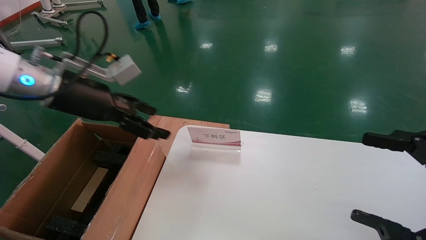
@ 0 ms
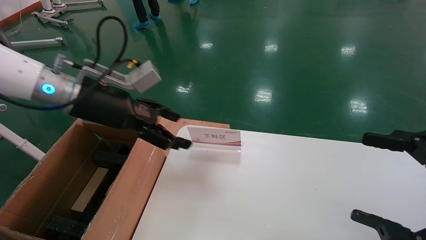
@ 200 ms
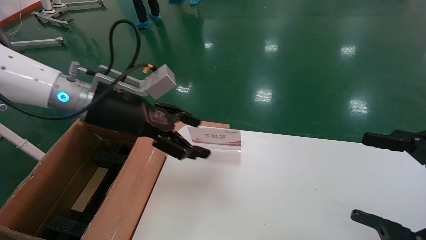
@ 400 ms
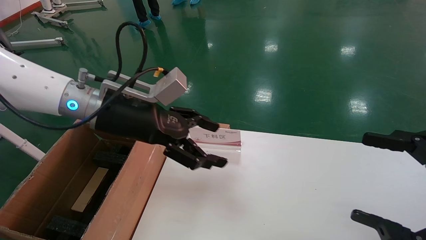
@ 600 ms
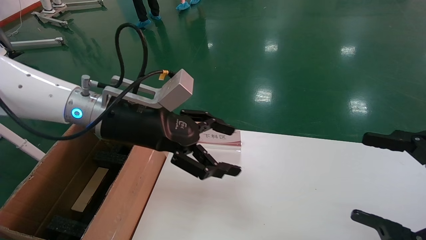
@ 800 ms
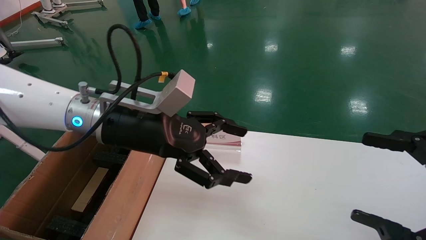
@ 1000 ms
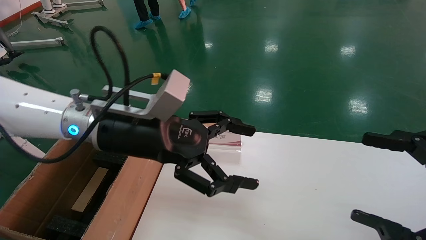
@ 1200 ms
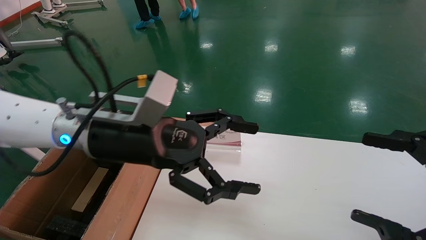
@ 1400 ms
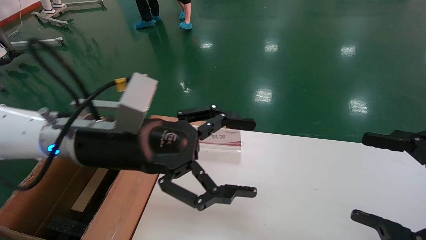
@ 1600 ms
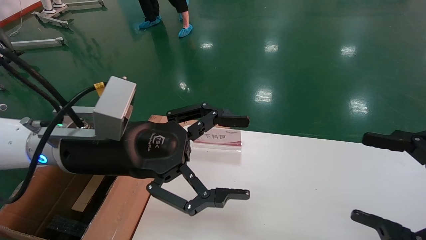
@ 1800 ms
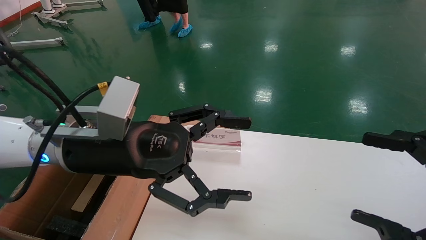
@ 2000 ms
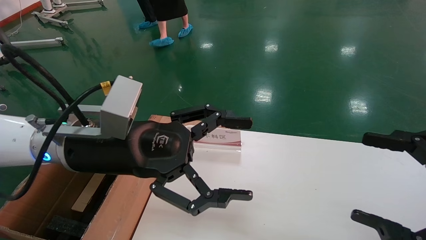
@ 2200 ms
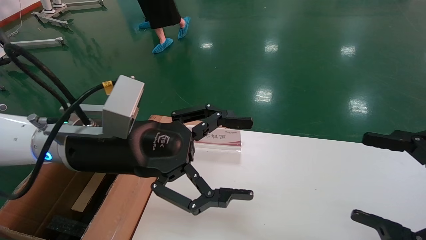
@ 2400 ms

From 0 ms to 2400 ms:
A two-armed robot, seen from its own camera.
Task of the whole recording: pick up the small cardboard box and load it into the large cardboard box.
From 0 ms to 1200 ms: The left gripper travels to the right by some 10 cm.
From 1200 ms to 2400 ms: The grippers make only small movements.

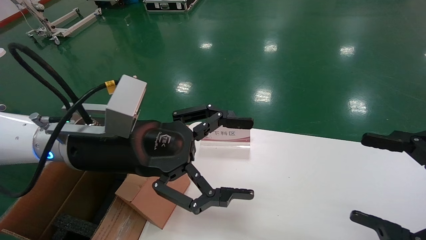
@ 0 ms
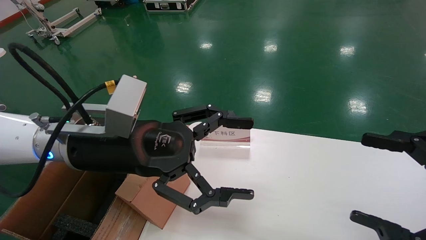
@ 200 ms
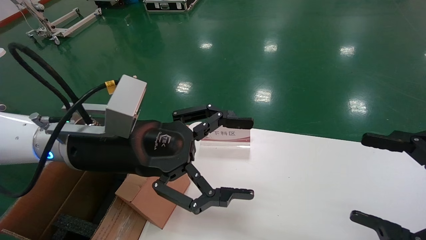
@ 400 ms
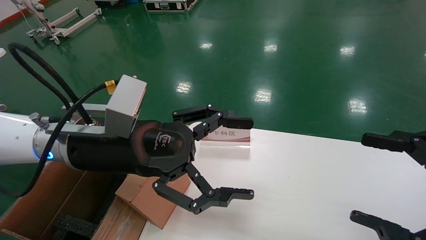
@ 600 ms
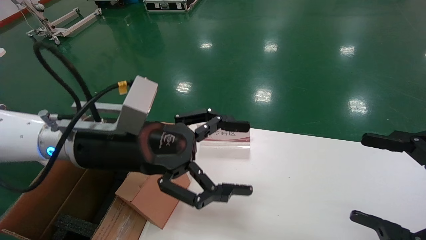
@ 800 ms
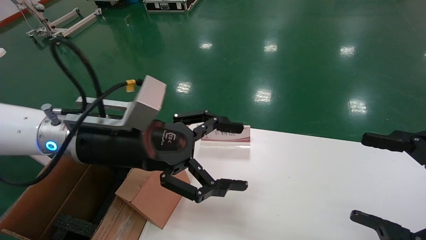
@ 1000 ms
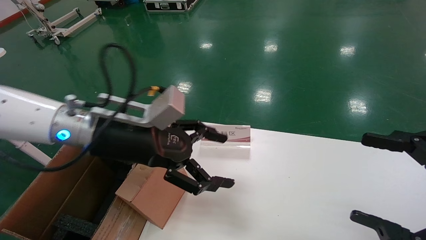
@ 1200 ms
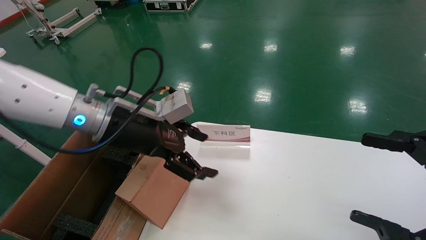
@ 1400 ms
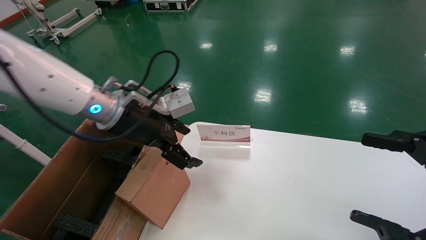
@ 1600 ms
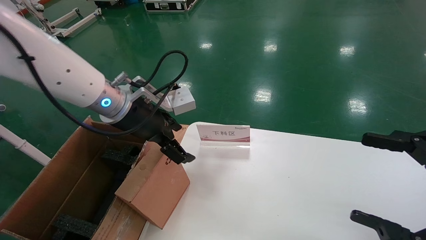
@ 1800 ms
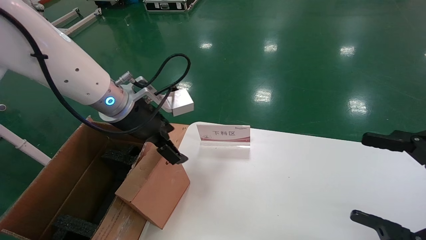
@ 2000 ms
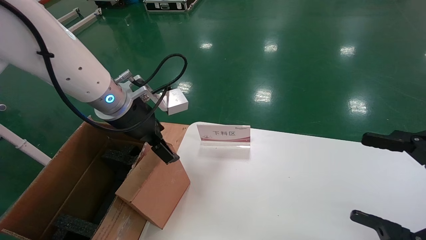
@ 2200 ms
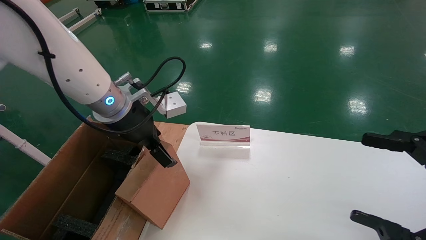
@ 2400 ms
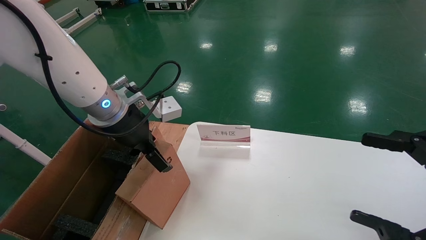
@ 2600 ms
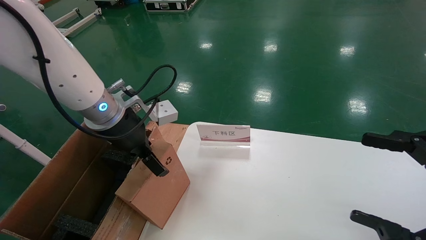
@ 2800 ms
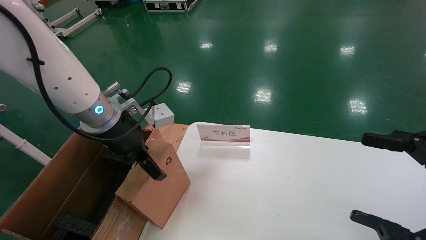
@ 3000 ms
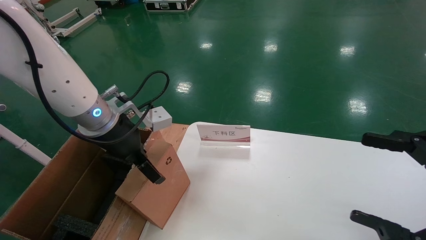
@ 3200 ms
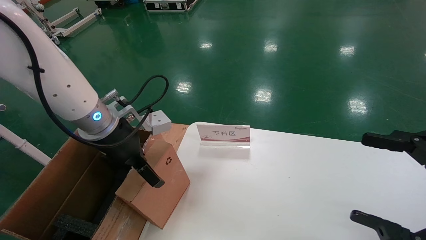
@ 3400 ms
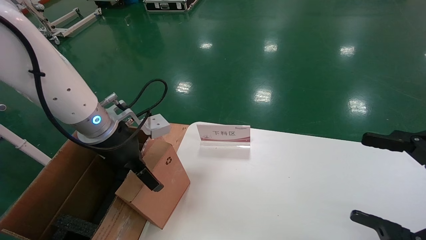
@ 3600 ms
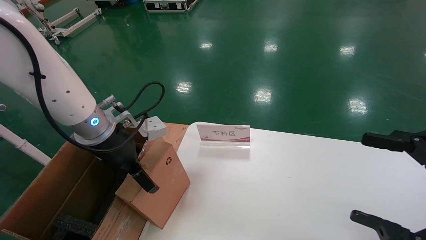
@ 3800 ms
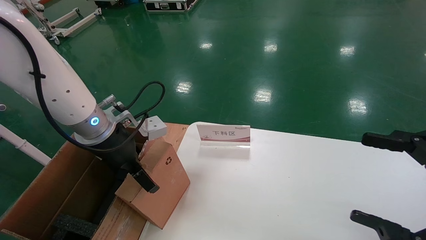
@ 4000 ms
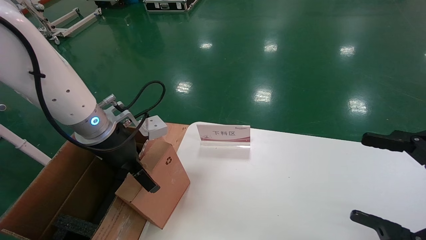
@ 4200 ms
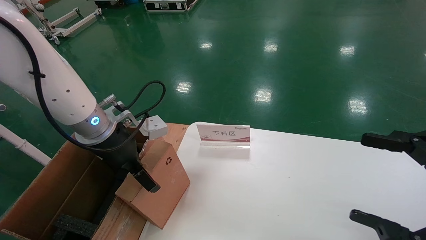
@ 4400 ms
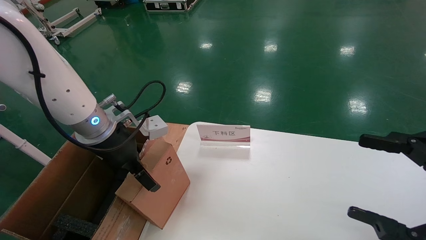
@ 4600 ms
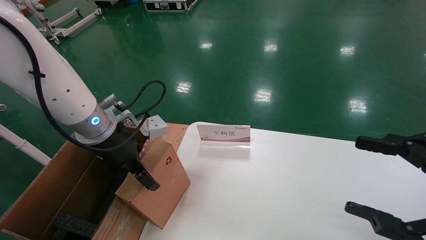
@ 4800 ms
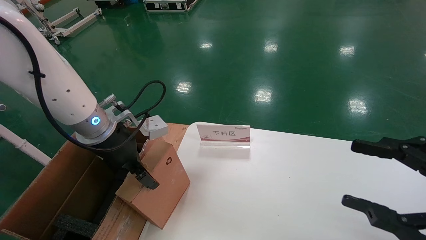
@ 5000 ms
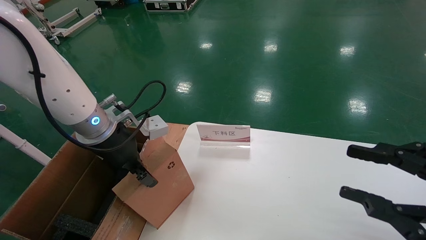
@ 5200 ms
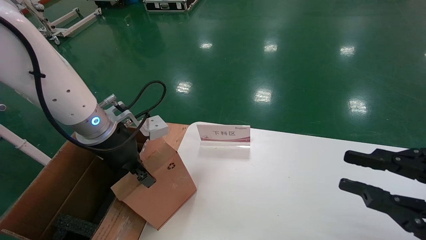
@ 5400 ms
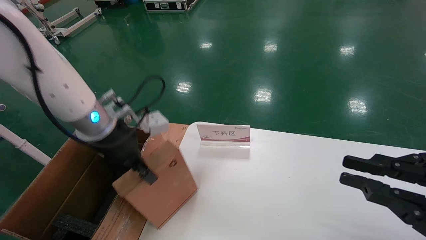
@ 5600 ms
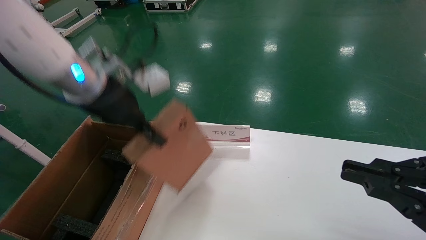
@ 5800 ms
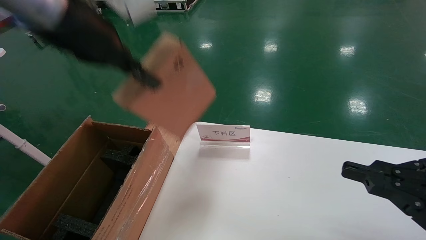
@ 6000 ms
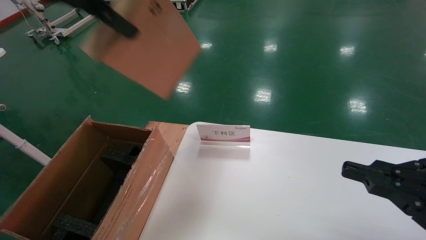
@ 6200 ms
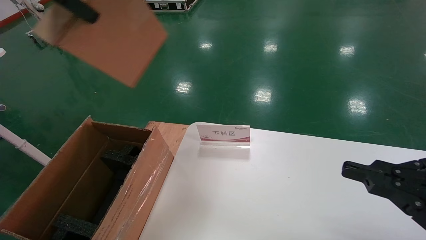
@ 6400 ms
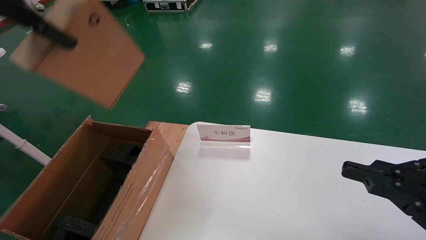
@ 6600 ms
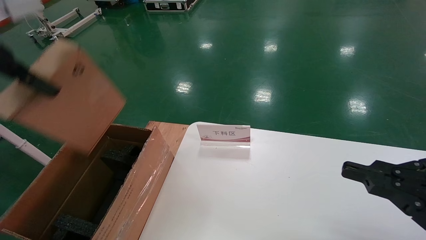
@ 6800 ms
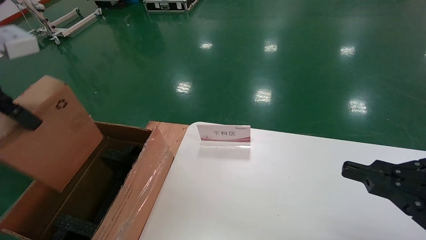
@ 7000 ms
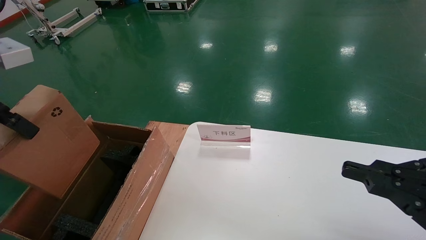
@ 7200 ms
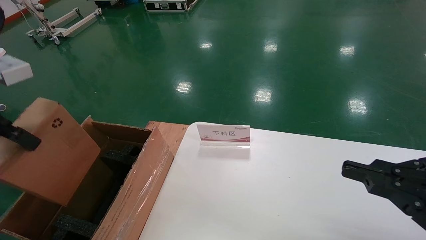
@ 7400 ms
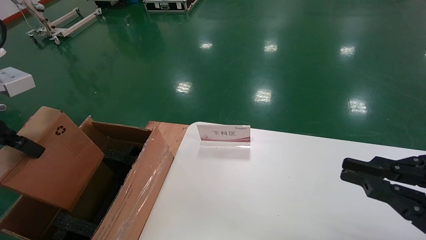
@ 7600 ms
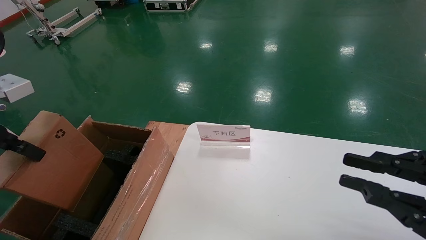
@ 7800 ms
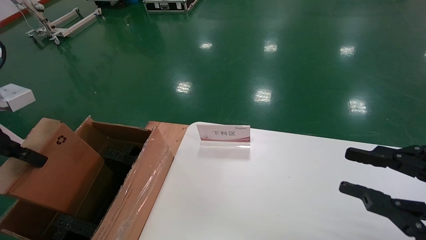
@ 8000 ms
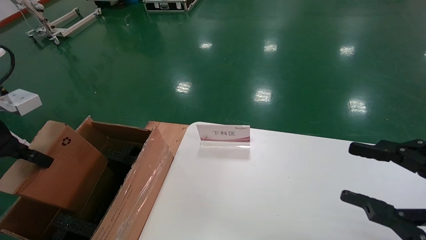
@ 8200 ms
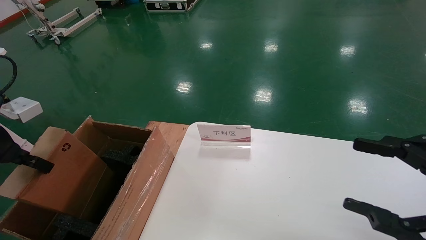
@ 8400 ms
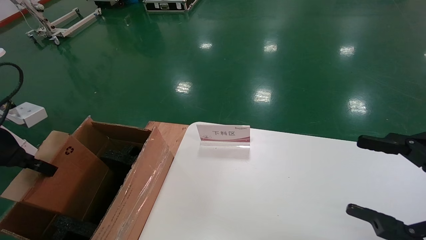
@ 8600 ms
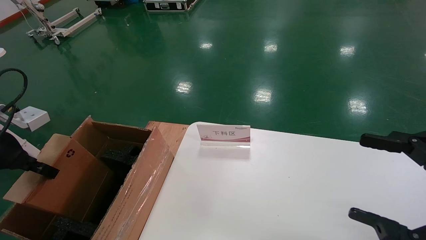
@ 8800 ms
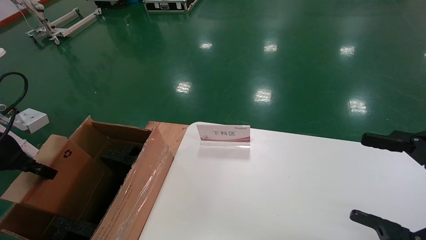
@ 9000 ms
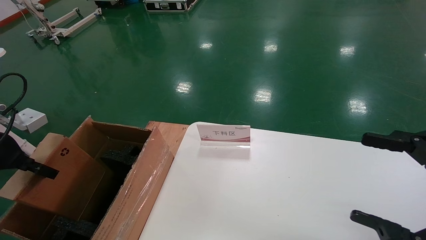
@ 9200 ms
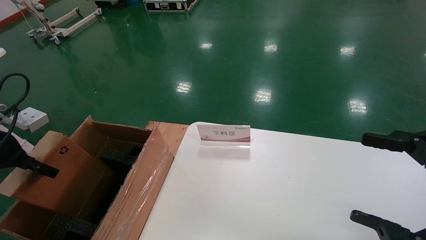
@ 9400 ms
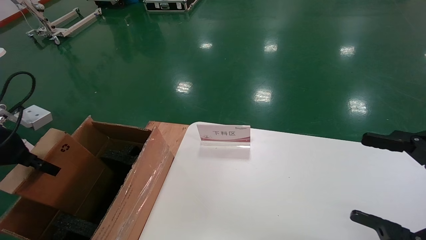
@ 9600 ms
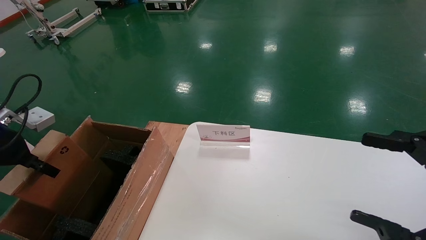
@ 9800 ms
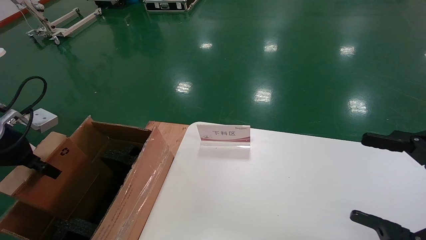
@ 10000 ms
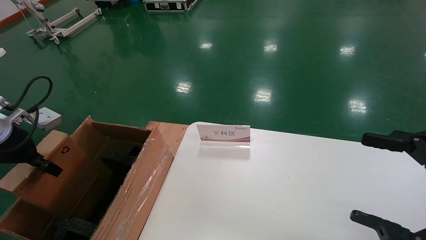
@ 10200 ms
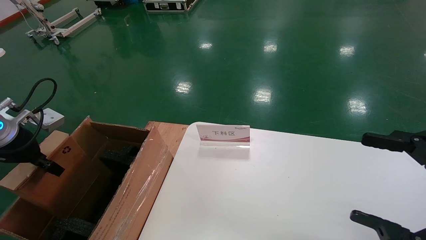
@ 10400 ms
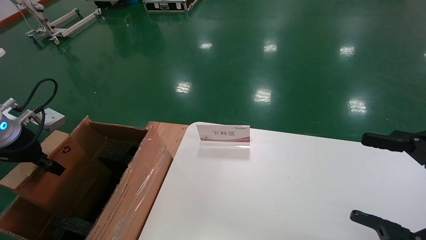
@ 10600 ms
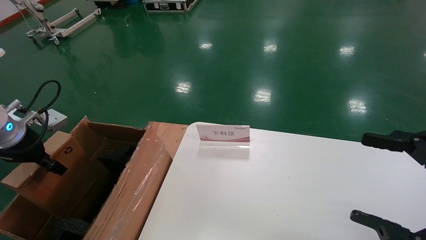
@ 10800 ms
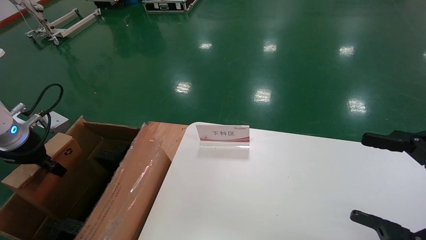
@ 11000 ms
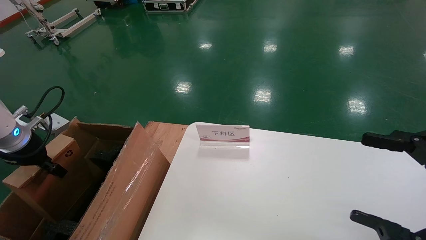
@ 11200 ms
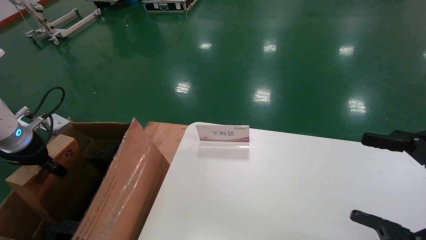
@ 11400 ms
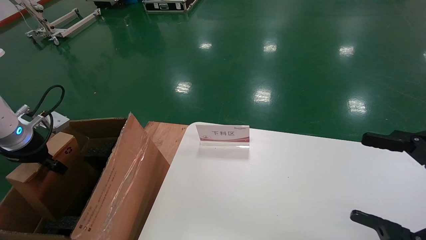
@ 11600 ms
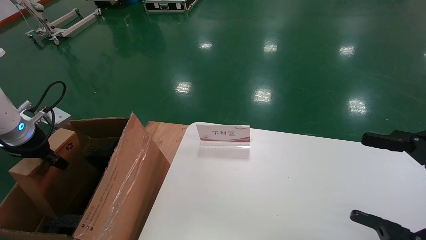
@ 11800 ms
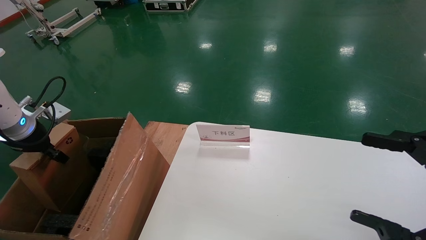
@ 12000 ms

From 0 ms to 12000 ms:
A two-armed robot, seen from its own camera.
Task of the whole recording: pick up the small cardboard box and load it into the large cardboard box.
Step, from 1200 ms to 5200 ms: Pick up the mouse and power cord box.
From 0 ms to 1600 ms: The left gripper heads forward, covering roughly 10 cm.
From 3000 ms to 4400 ms: The grippers make only small movements.
From 4400 ms to 6000 ms: The left gripper moves upward, roughly 20 cm, and closes its fingers. The right gripper closes up.
From 6000 ms to 7600 ms: The left gripper shifts roughly 20 cm to the left, backward and downward.
From 7600 ms to 9000 ms: The right gripper opens up. The left gripper goes about 10 cm downward and to the left.
From 9000 ms to 10400 ms: There are only small adjustments of the grippers.
From 10400 ms to 12000 ms: The left gripper shifts by about 5 cm.

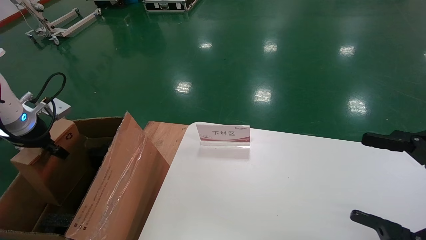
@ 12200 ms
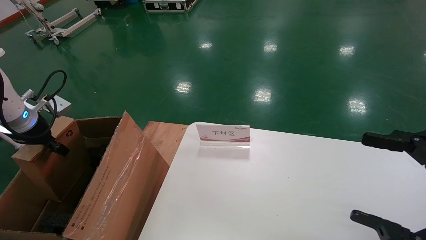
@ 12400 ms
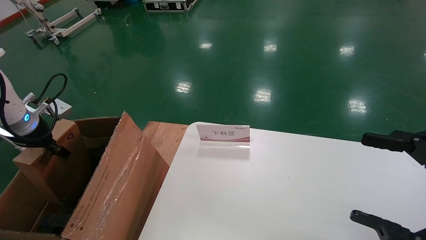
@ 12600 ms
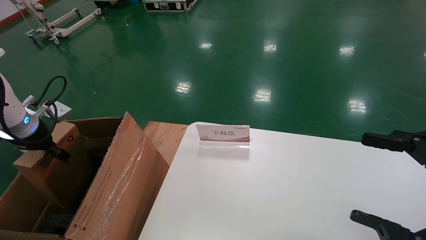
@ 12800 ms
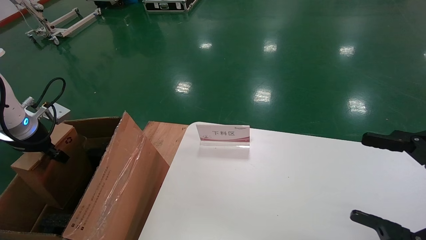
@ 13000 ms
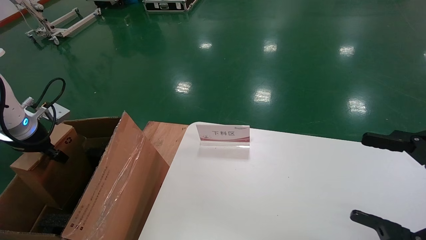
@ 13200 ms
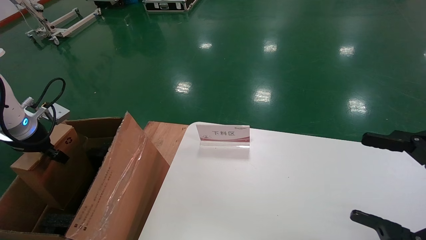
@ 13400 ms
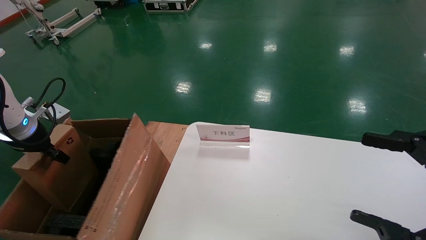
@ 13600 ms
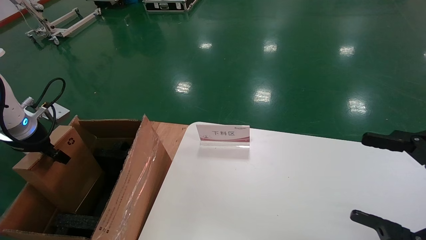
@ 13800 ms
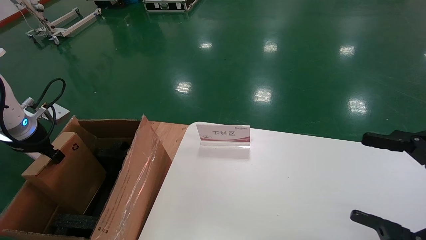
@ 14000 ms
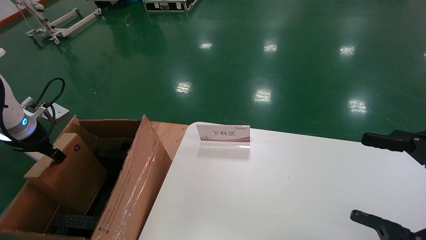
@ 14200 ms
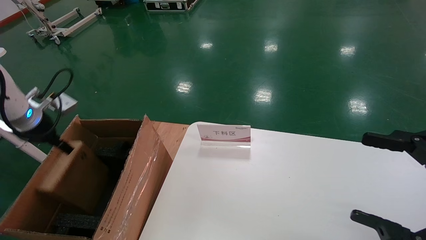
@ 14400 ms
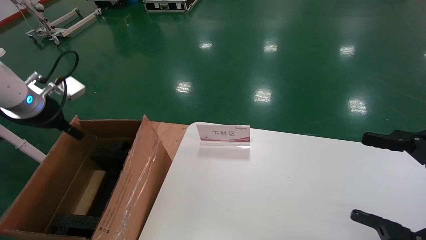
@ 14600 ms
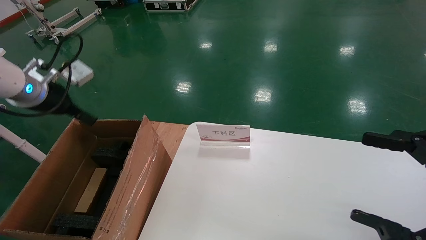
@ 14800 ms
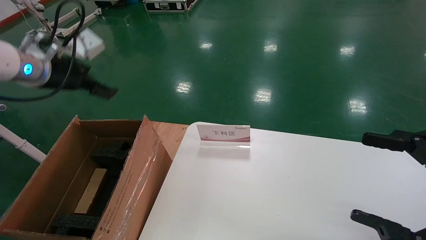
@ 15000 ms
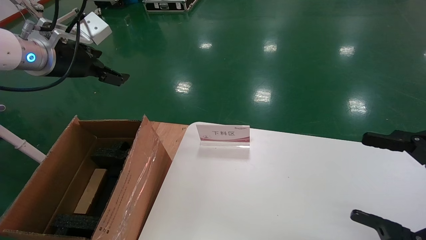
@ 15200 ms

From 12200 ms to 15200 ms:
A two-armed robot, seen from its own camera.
Task of the whole recording: pick up the small cardboard box and load it into the large cardboard box.
Step, from 12200 ms to 14200 ms: Place the mouse and power cord box into the case.
From 12200 ms to 13800 ms: Both grippers stay put.
From 13800 ms to 15200 ms: The left gripper heads upward and to the right, covering roughly 15 cm, and opens its fingers.
